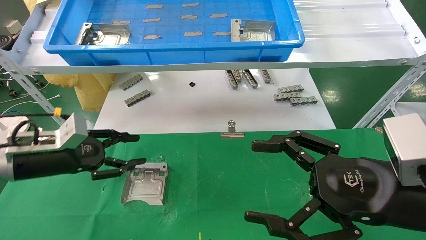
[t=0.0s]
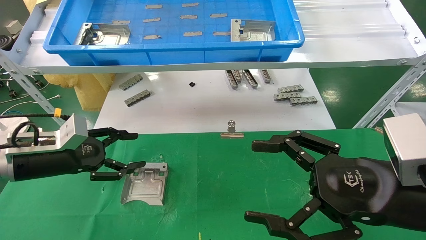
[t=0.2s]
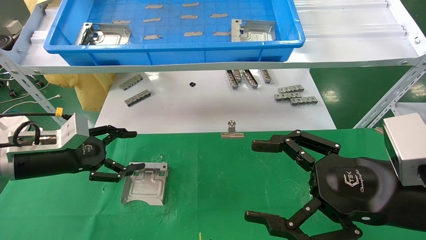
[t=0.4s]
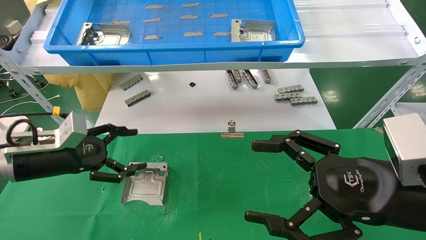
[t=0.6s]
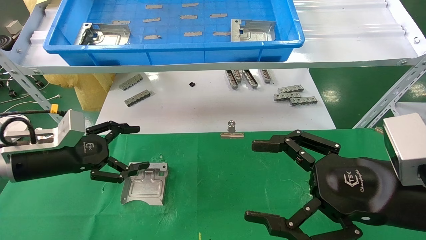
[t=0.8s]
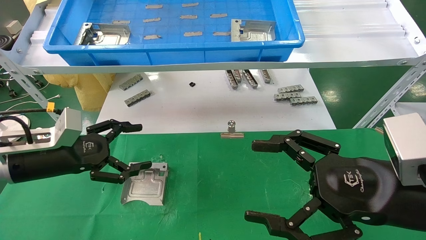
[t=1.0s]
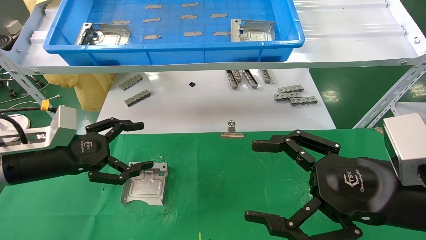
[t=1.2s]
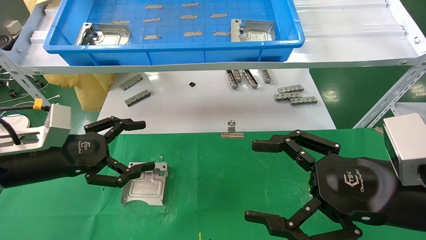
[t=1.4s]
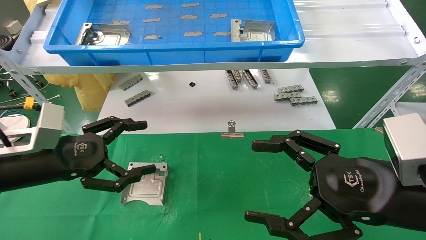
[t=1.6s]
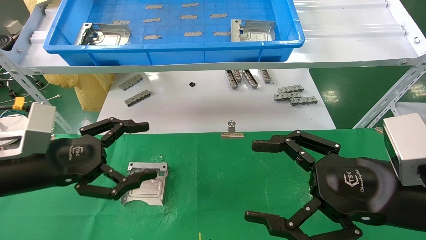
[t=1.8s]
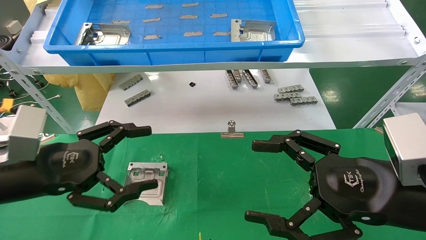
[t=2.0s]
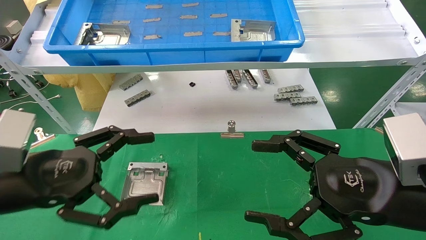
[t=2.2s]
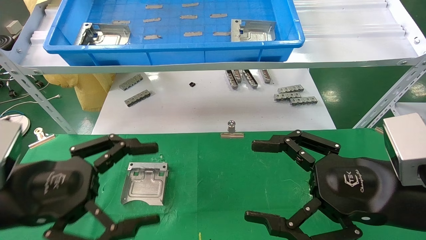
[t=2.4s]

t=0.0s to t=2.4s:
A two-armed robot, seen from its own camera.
Task of the whole recording: use the mechanical arm to pick up the parts and place them on the table.
t=0.0s to t=1.2s: The left gripper opens its fingers.
t=1.2s to t=2.4s: The left gripper shifts some 10 cm backward.

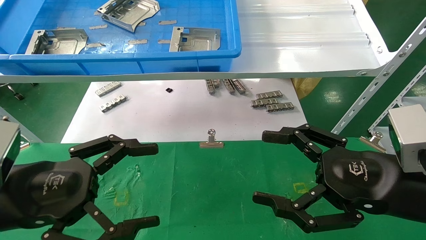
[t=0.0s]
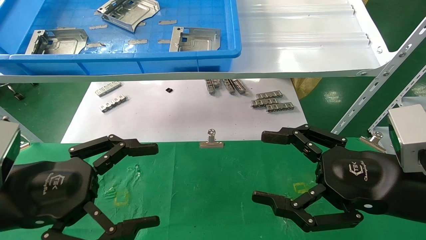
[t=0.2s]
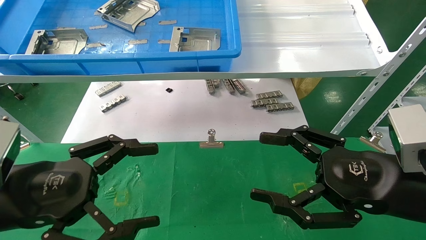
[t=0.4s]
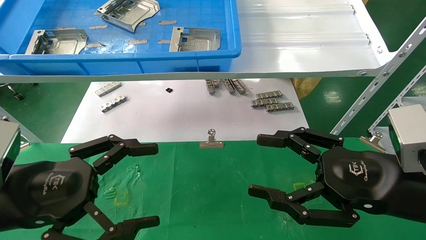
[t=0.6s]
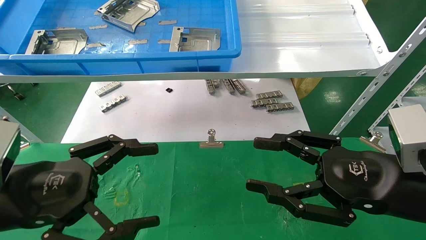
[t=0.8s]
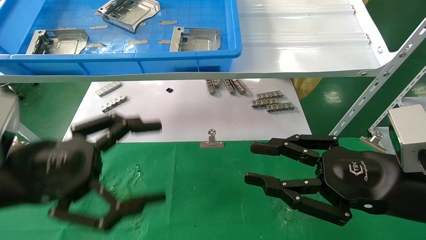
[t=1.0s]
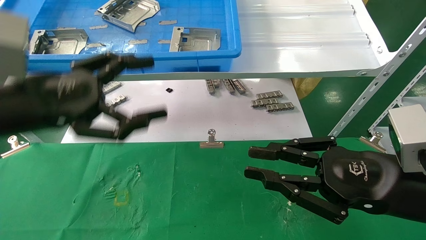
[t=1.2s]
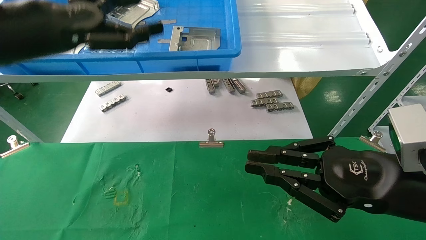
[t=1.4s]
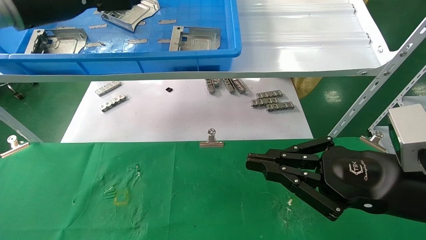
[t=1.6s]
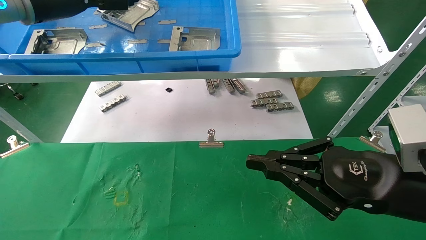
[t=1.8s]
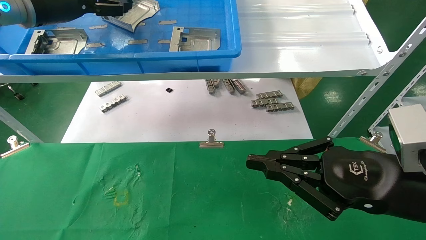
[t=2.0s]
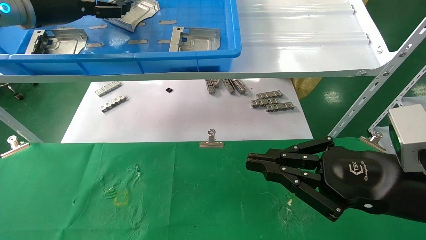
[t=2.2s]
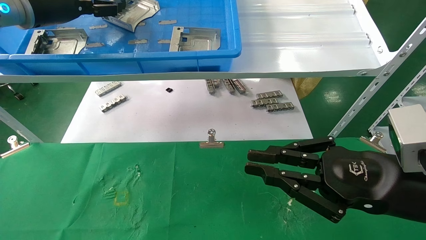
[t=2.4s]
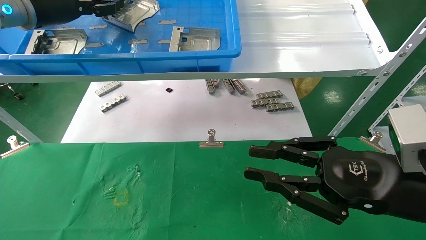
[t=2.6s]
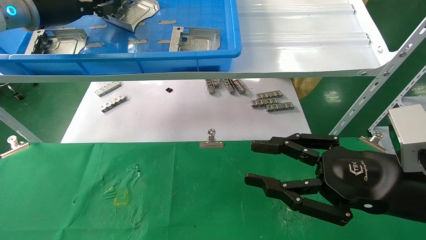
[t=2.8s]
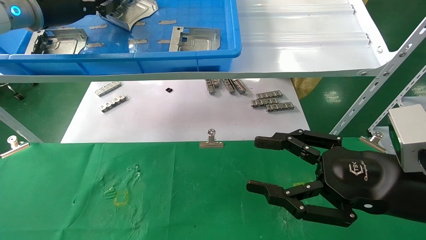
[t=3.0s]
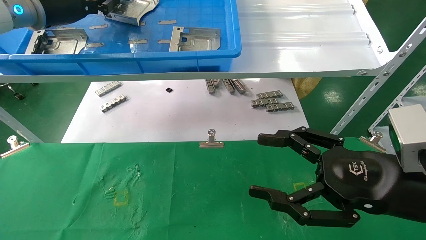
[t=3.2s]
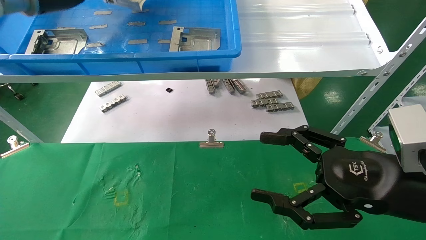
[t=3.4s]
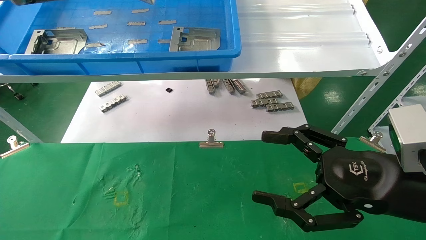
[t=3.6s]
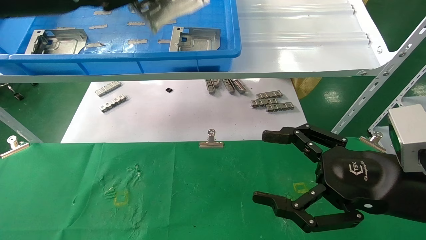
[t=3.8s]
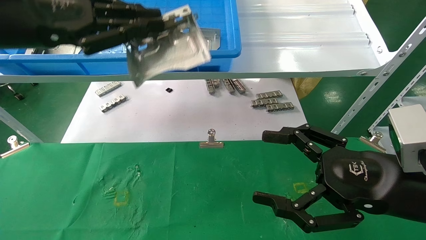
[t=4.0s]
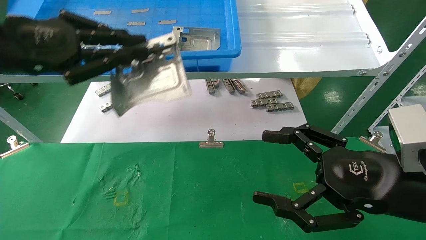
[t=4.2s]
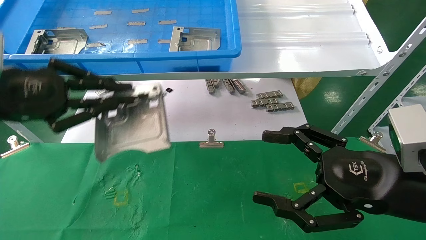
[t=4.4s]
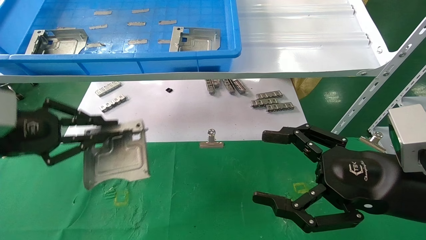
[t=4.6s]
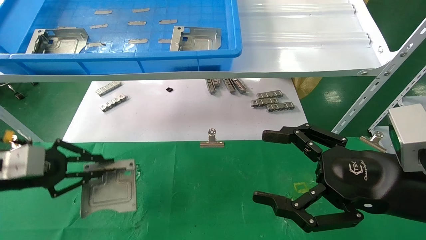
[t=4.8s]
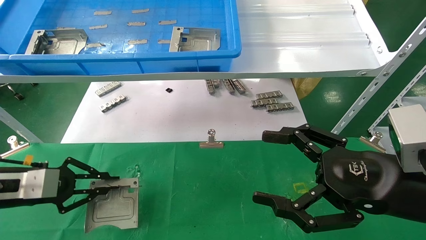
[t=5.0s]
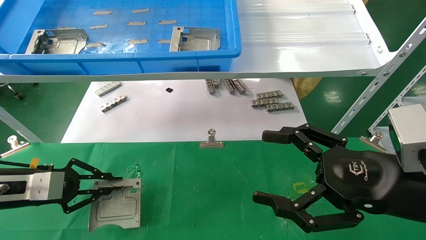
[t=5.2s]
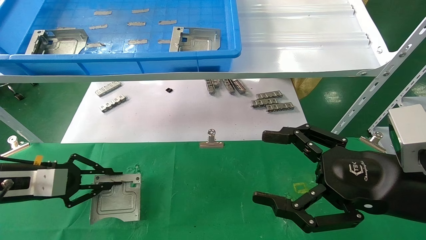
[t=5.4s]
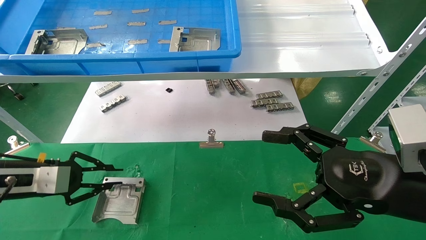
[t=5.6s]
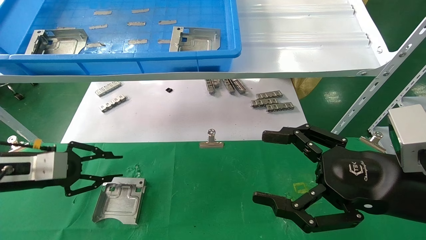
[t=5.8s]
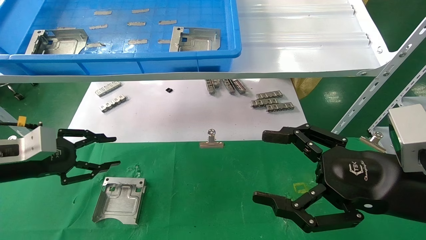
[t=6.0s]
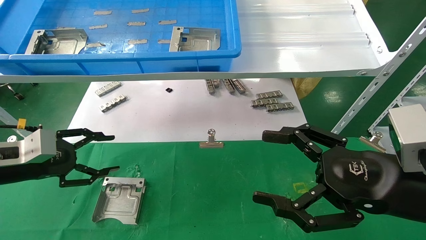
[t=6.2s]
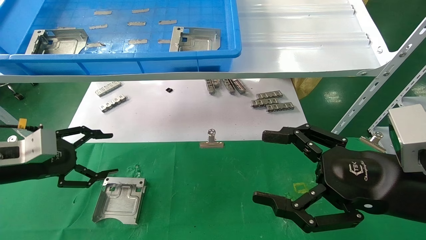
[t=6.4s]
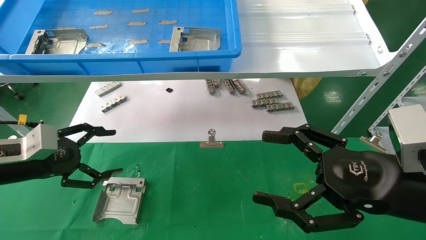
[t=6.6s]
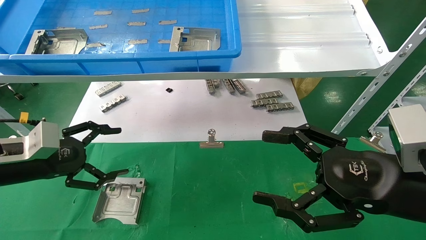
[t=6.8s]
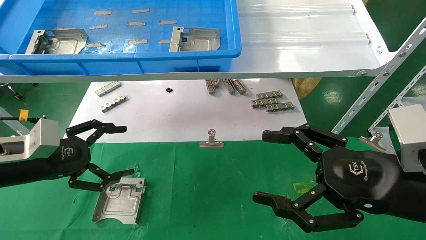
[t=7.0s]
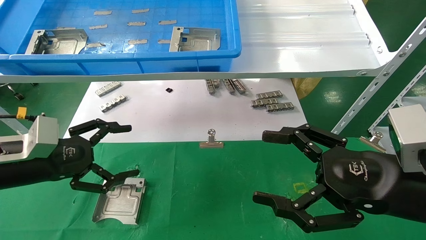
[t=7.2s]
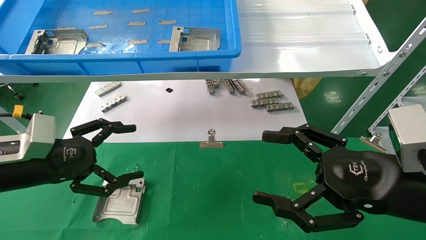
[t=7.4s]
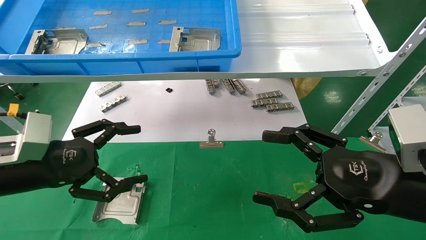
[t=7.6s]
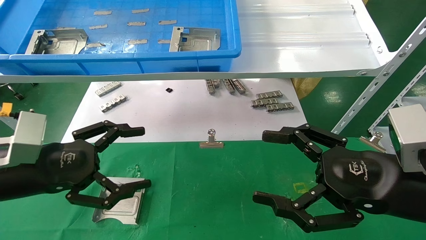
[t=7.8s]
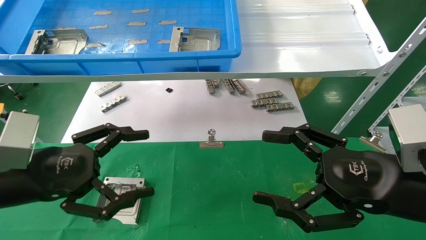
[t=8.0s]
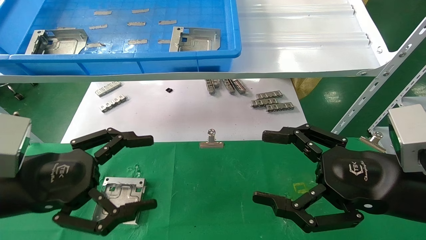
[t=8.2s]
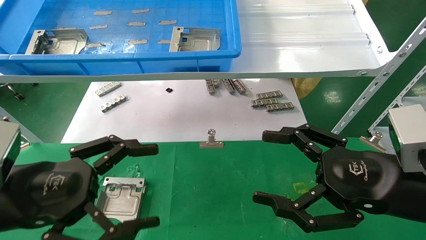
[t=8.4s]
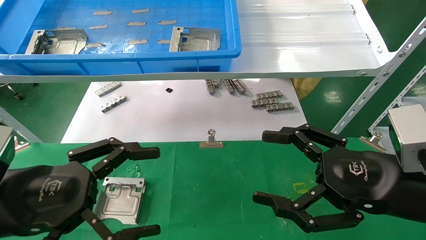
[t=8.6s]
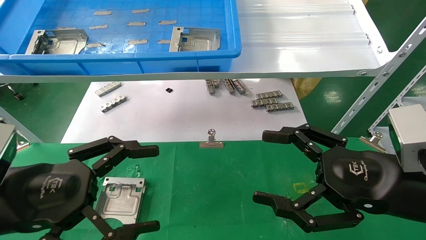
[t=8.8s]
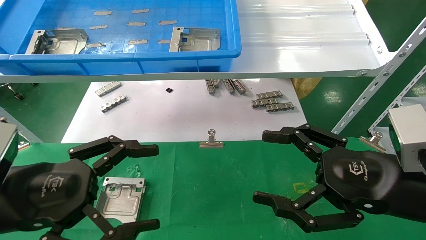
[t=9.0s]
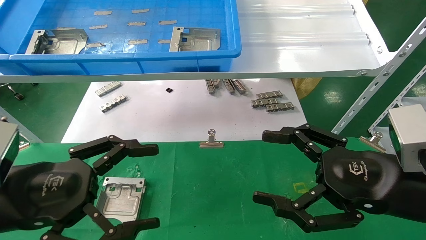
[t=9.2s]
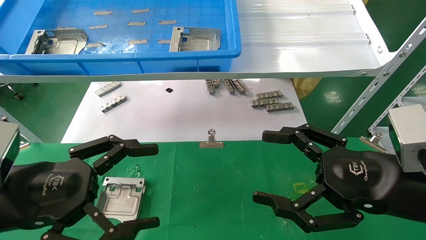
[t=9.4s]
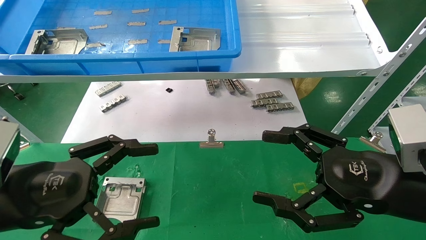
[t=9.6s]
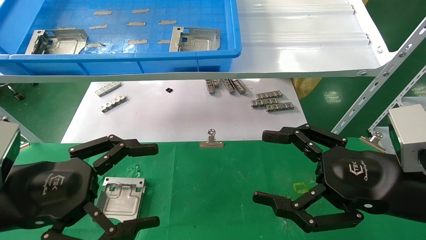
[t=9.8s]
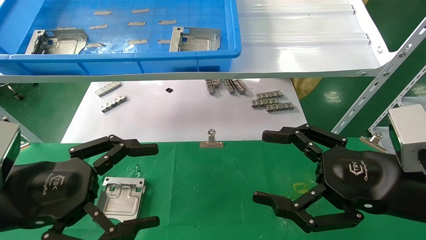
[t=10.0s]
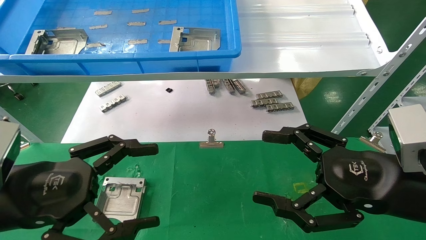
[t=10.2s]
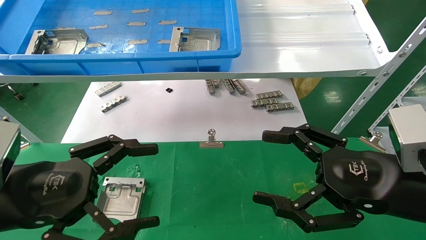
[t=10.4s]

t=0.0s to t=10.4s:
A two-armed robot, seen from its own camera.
Task of the whole recording: use the mechanical arm to pick up the parts and place them on the table.
Step, t=1.4s to t=3.2s: Pick up the hard drive bracket from the feeding area.
Step, t=3.4s to t=5.6s: Place the hard drive bracket into the box.
t=0.0s to t=1.4s: The right gripper closes up, while the left gripper goes some 20 cm upward and forward.
t=1.4s to t=3.0s: The left gripper shifts approximately 10 cm forward and upward, and closes.
t=3.0s to t=4.4s: The right gripper opens, while the left gripper moves backward and downward, about 20 cm.
t=4.4s to t=6.0s: The left gripper travels downward by approximately 15 cm.
t=6.0s to t=7.4s: The left gripper moves to the right, some 5 cm, and opens.
t=7.4s to t=9.0s: The left gripper heads backward and to the right, covering some 10 cm.
t=9.0s to t=10.4s: Both grippers stay about where they are.
